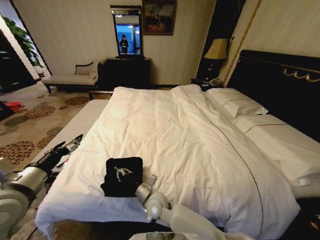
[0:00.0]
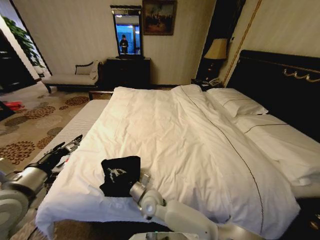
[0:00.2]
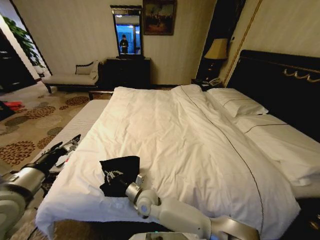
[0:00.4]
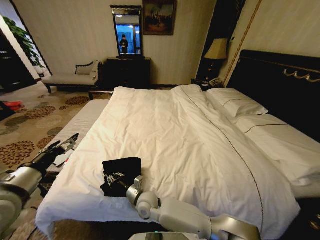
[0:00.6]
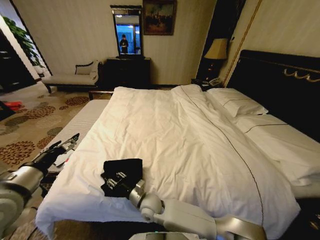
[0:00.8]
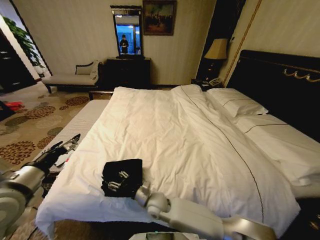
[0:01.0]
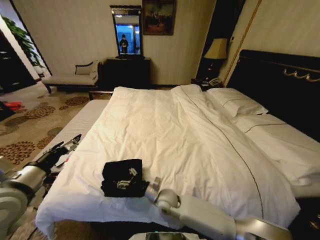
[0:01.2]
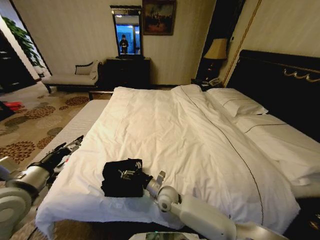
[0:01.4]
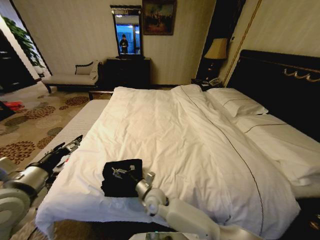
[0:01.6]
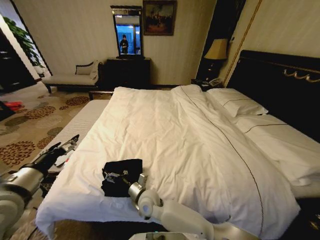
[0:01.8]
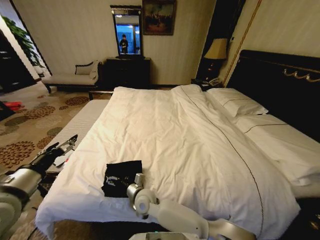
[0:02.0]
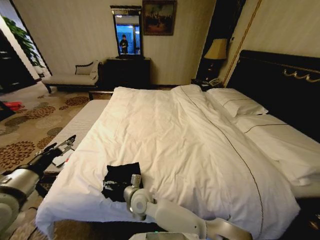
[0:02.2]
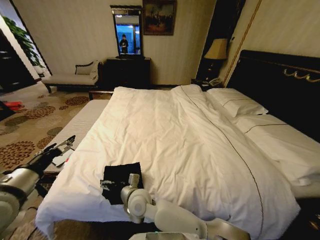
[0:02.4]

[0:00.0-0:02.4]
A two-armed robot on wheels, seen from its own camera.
Task of the whole recording: Fold the clothes on the bed.
0:00.0 to 0:01.2: The right gripper ends up some 5 cm from where it was, and opens up.
0:01.2 to 0:02.4: The right gripper shifts approximately 15 cm to the left and upward.
